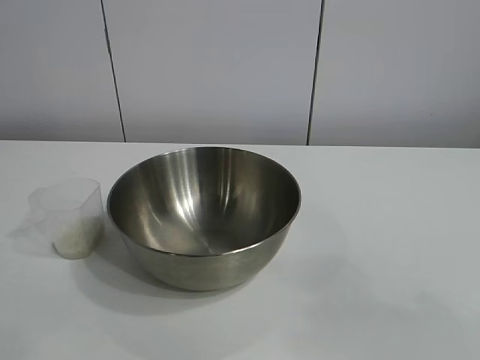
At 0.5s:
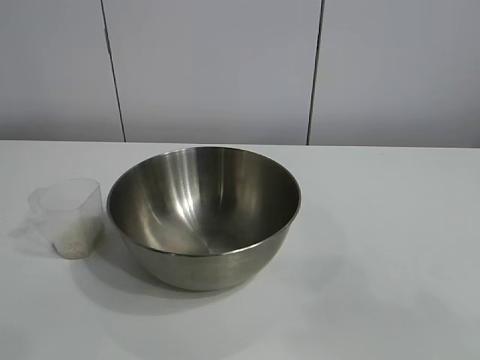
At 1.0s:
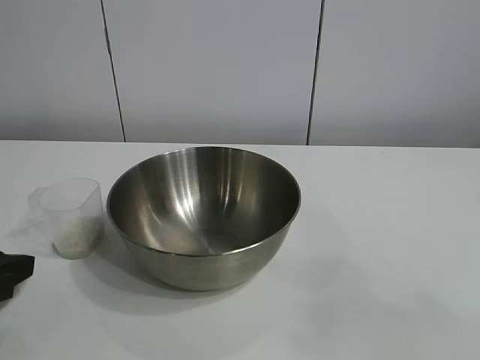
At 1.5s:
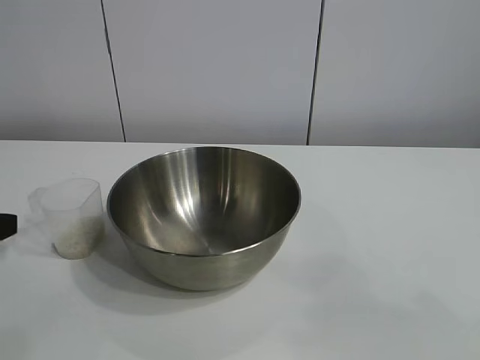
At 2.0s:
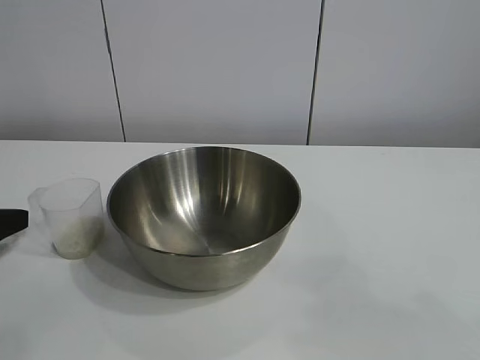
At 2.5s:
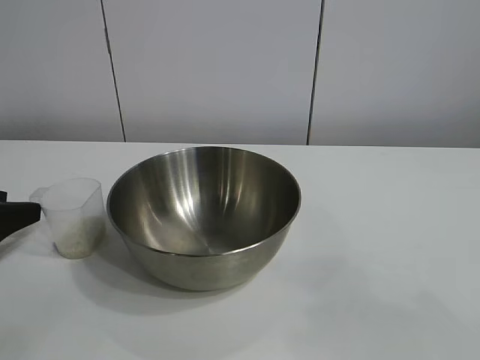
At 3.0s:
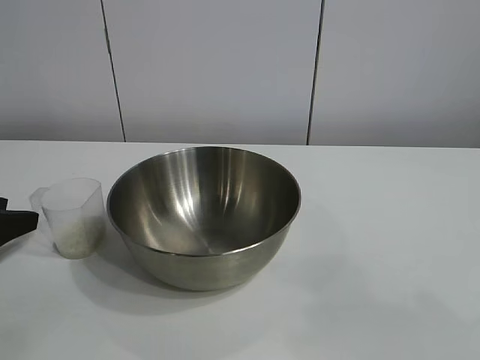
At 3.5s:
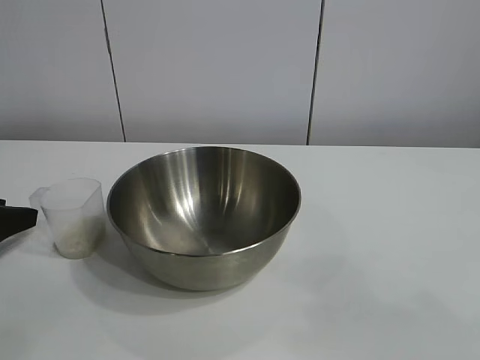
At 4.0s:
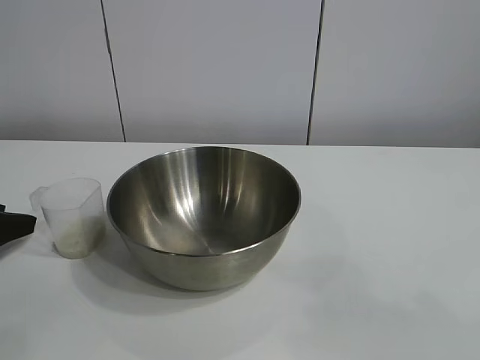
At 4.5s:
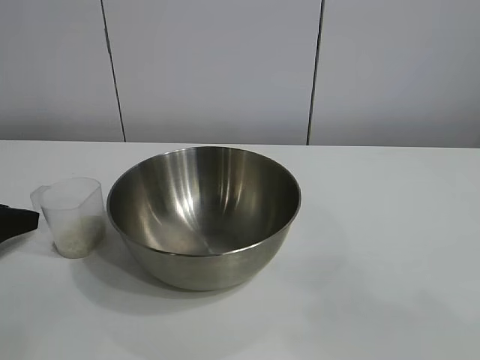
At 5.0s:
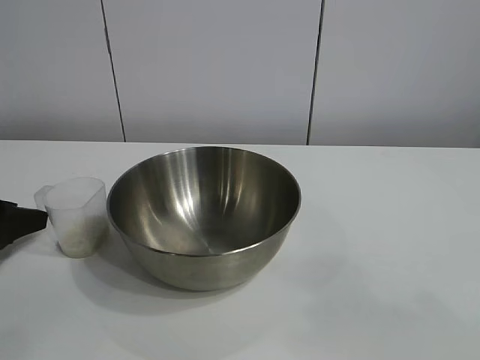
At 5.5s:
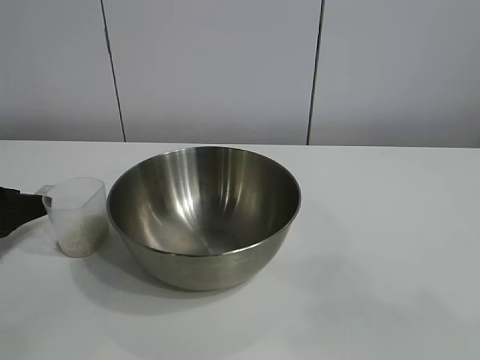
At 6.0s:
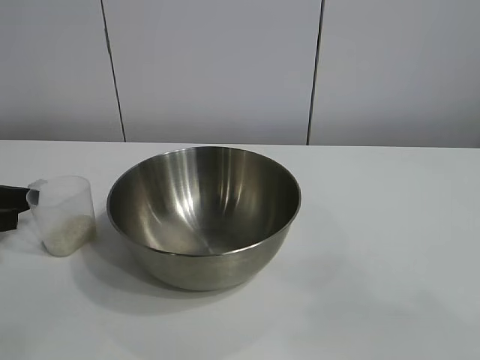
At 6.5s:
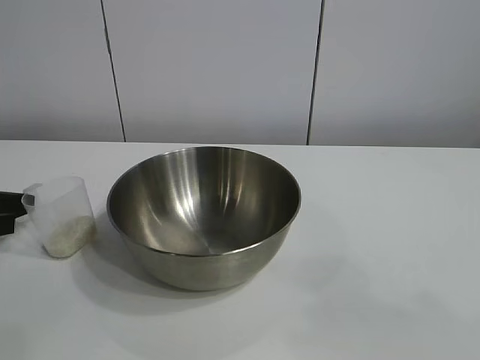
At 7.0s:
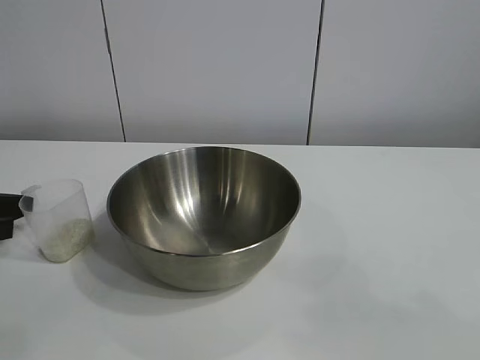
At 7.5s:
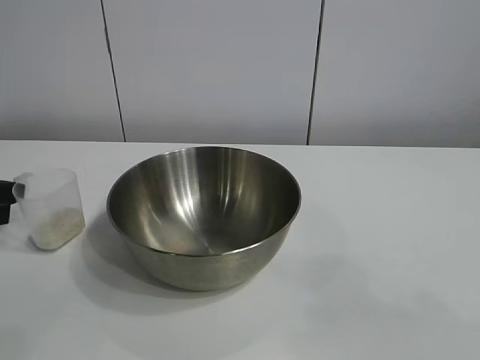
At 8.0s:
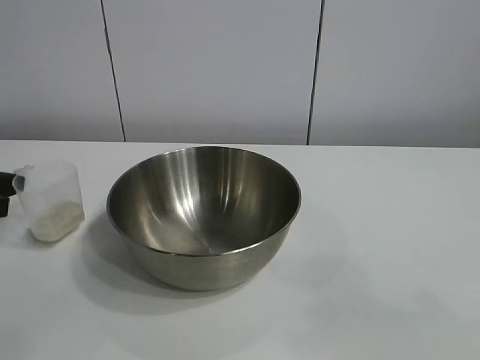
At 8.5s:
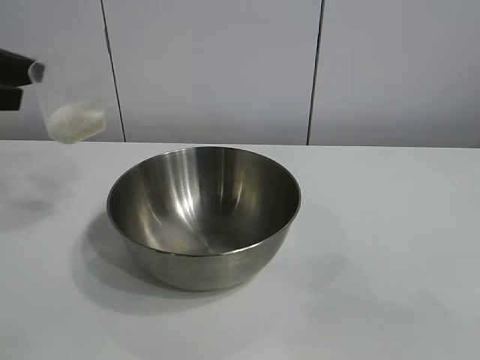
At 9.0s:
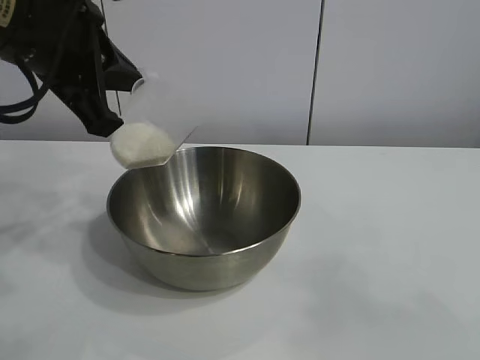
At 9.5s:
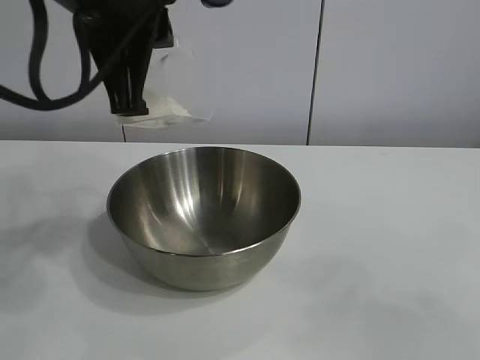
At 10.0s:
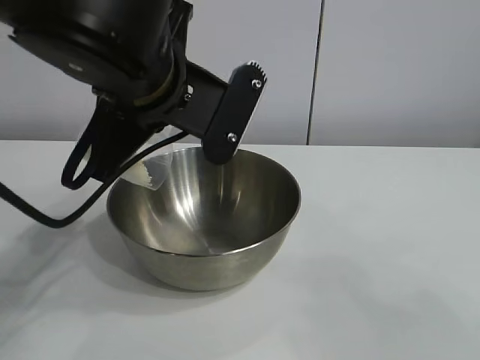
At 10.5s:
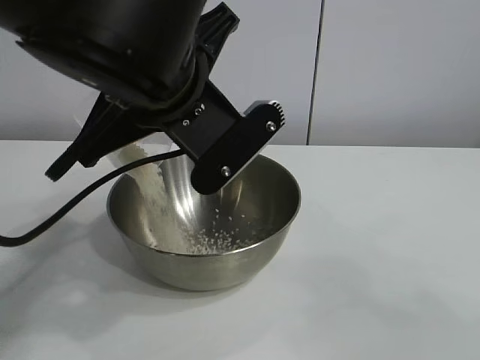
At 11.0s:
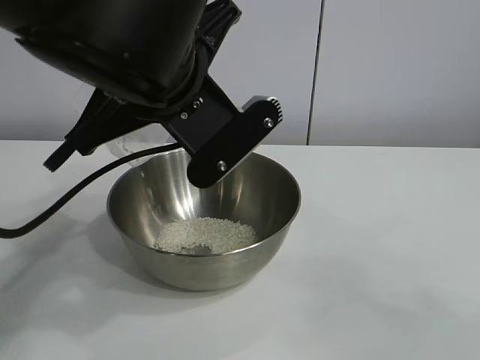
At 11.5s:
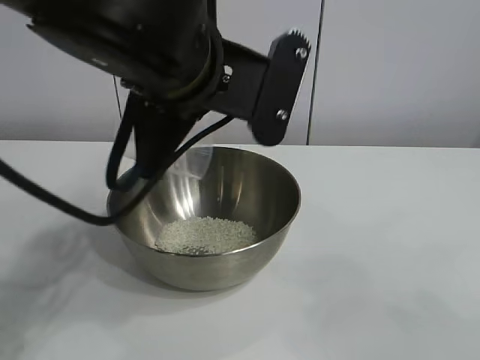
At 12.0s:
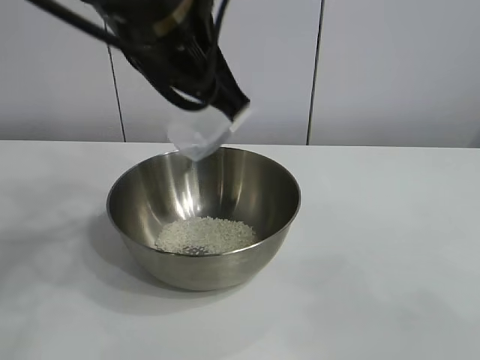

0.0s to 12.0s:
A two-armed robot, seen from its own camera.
Task of the whole recording: the right gripper grasp the rice container and place it in the center of the table, the left gripper grasp the rice scoop and pour the rice into the rice container.
Step, 0.0s to 6.0s: Grasp the cup with rice in it with left gripper.
Step, 6.5s to 11.0s: Pour the rice from the cup into the bowl with the left gripper.
